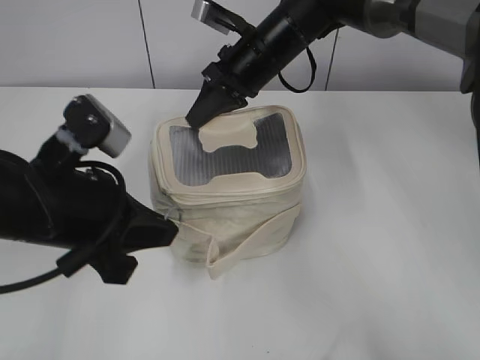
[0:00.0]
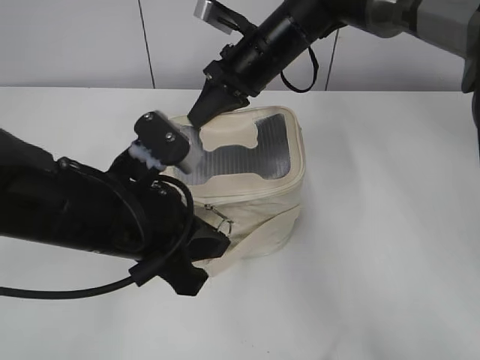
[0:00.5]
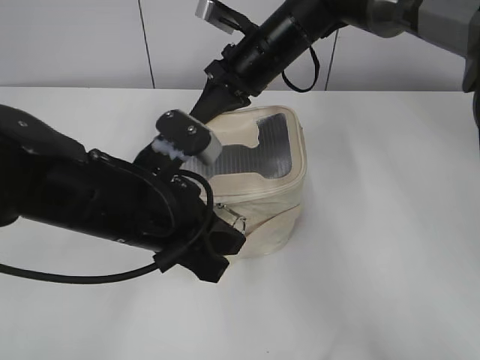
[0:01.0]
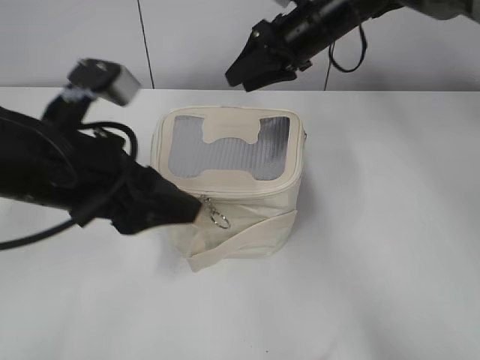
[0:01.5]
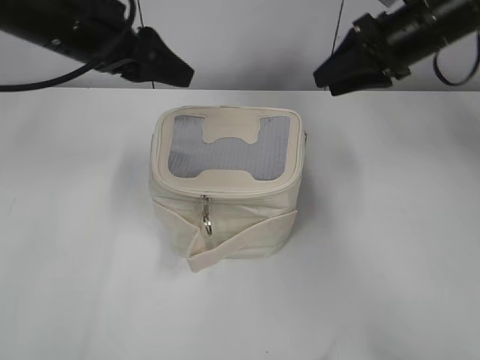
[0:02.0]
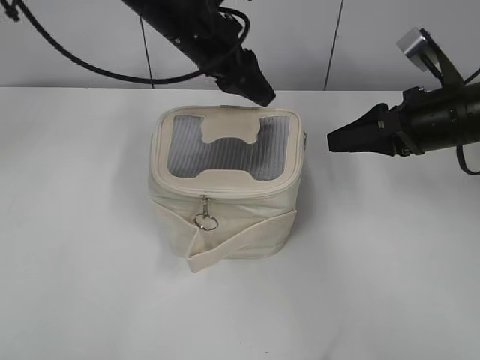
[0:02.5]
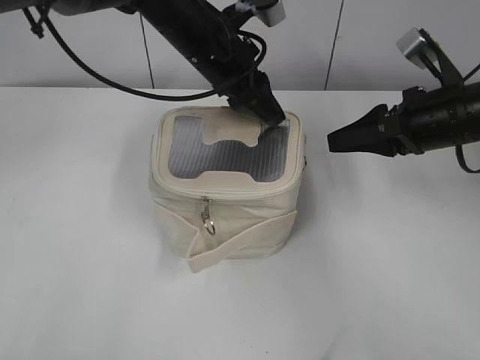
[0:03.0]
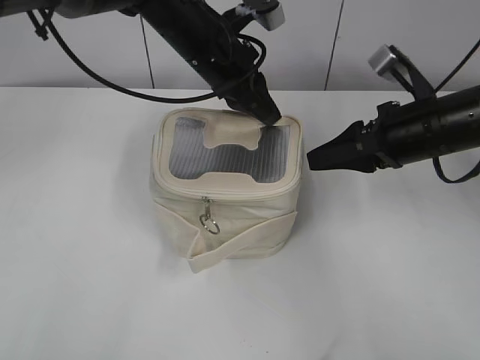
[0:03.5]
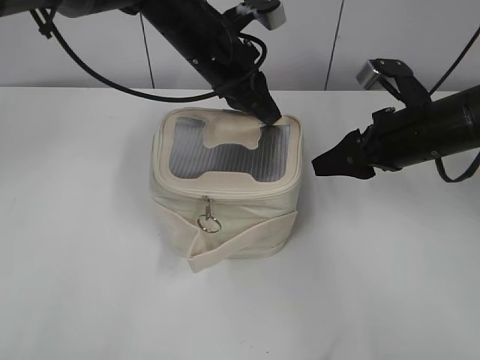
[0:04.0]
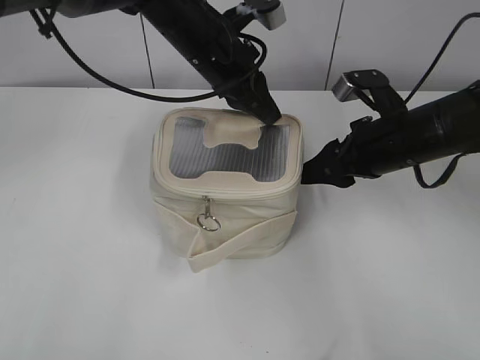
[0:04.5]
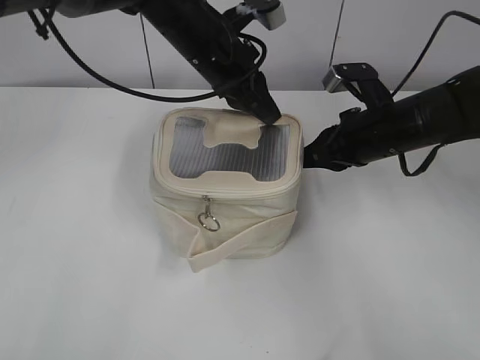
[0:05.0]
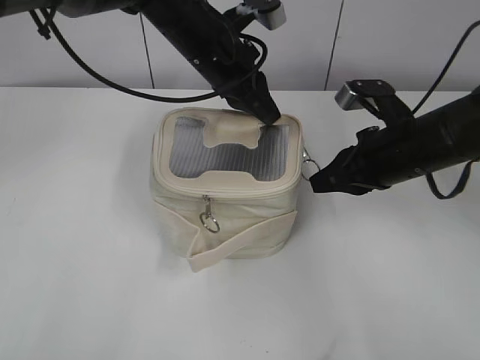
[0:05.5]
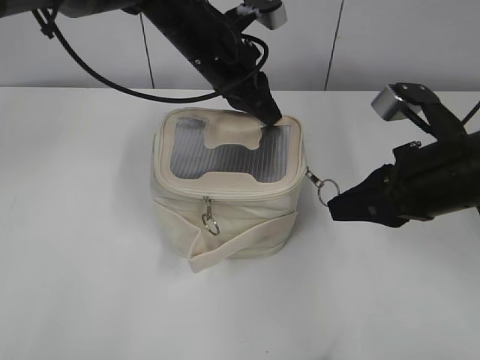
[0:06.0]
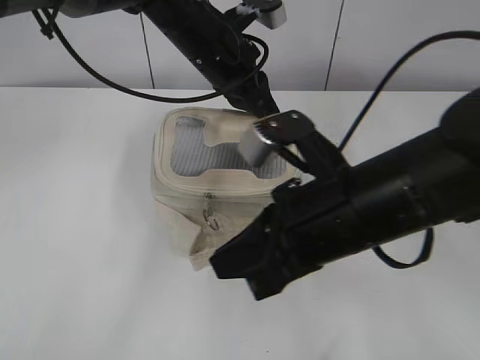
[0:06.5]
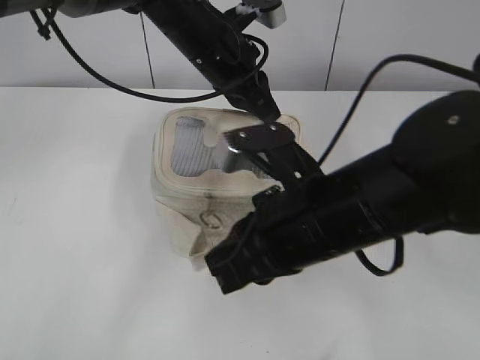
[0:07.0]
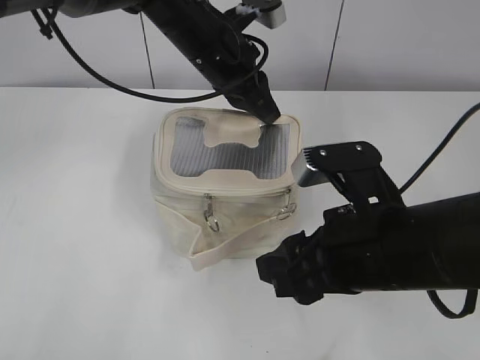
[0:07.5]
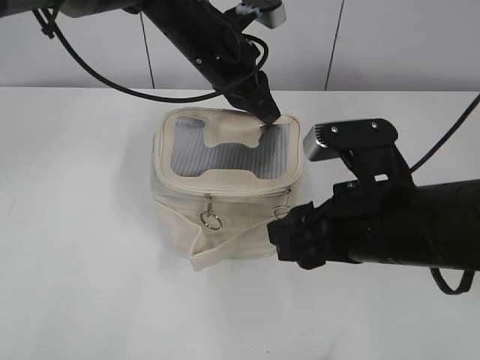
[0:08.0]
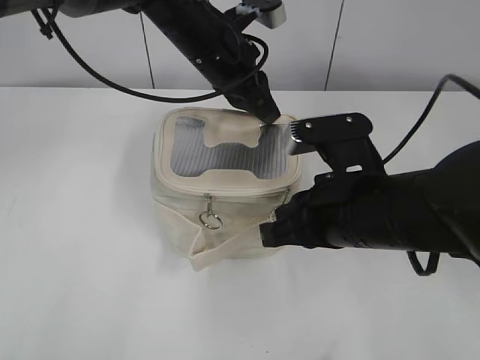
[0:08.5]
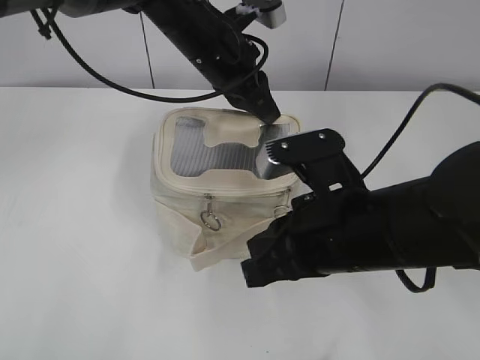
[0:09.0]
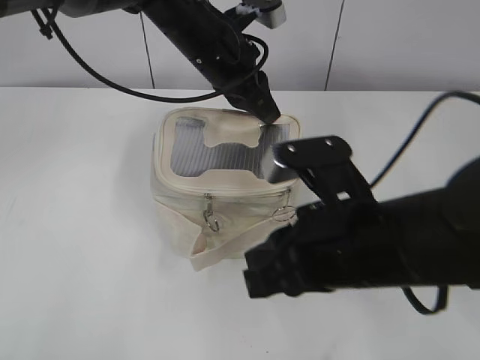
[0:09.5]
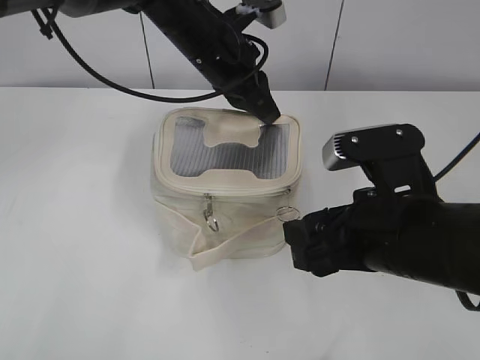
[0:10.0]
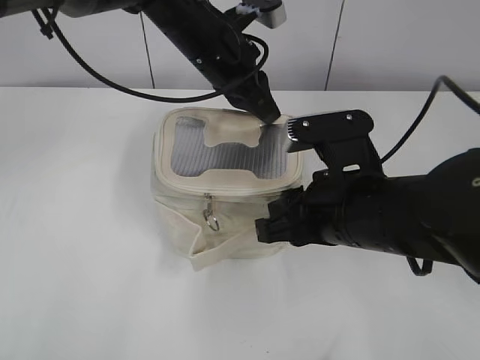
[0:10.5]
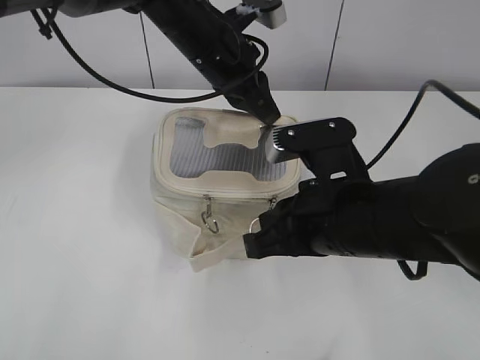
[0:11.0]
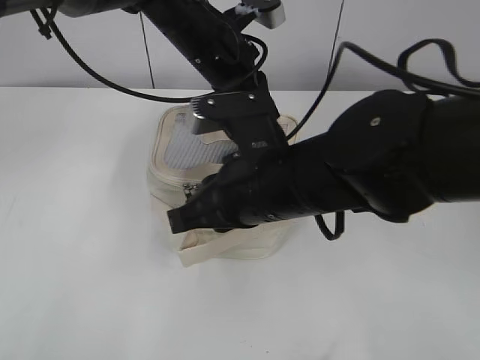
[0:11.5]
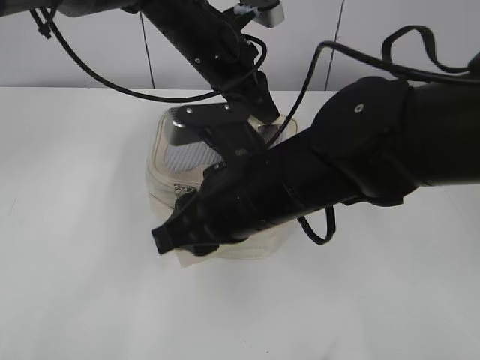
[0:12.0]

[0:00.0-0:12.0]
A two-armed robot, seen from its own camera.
Step, 0:01.5 to 0:12.0: Zip up the bag with your right hand.
0:00.0 to 0:02.0: The right gripper travels to the right by approximately 15 cm, and opens its fingers; the left gripper is displaced forward and upward by about 15 cm, and opens its fingers.
0:02.0 to 0:04.0: The left gripper is displaced to the right and forward by some 15 cm, and closes its fingers. Meanwhile the right gripper moves backward and downward, about 15 cm.
0:04.0 to 0:06.0: The right gripper goes roughly 10 cm backward, and closes up.
0:06.0 to 0:08.0: The right gripper travels to the left and backward by some 10 cm, and opens up.
0:08.0 to 0:10.0: The right gripper closes and opens again.
0:10.0 to 0:12.0: The right gripper moves to the left and forward, approximately 15 cm, and closes.

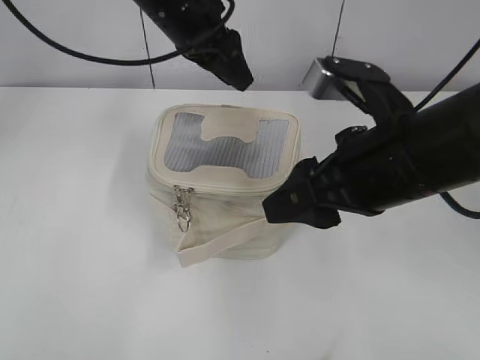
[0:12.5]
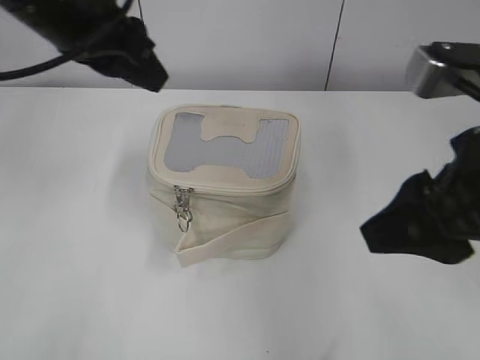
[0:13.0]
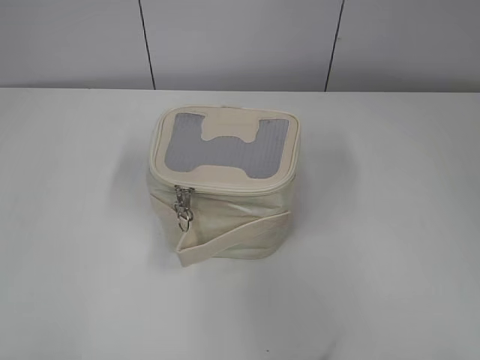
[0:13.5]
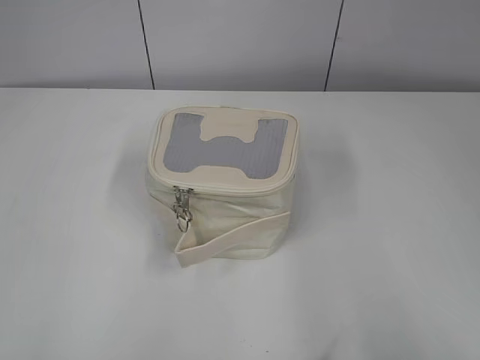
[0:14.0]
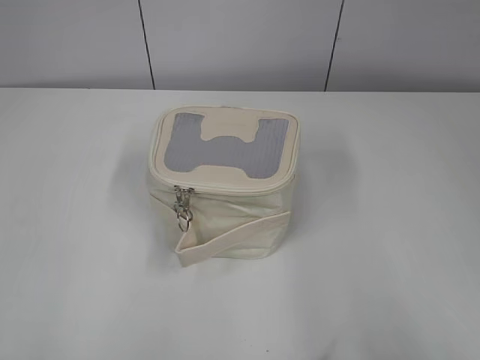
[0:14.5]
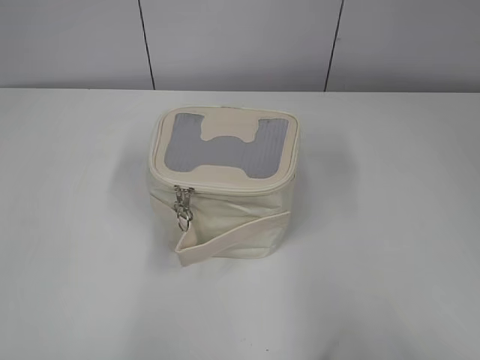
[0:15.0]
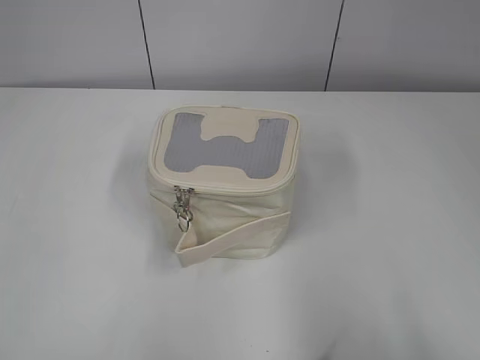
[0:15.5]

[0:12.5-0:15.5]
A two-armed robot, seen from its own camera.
0:12.5 to 0:14.0: The left gripper shifts roughly 50 cm backward and to the left. The right gripper travels backward and to the right by some 30 cm.
